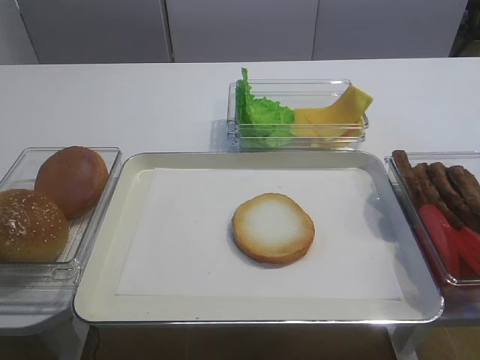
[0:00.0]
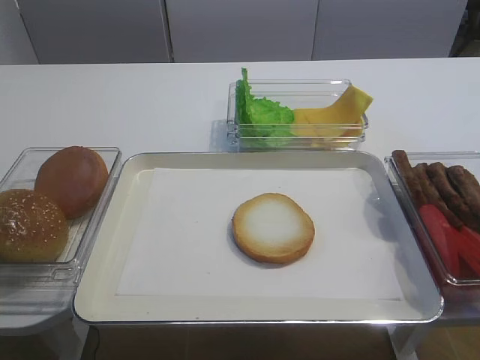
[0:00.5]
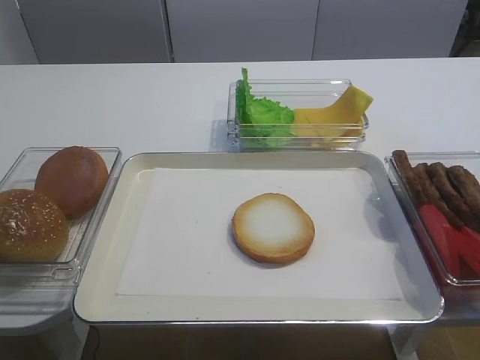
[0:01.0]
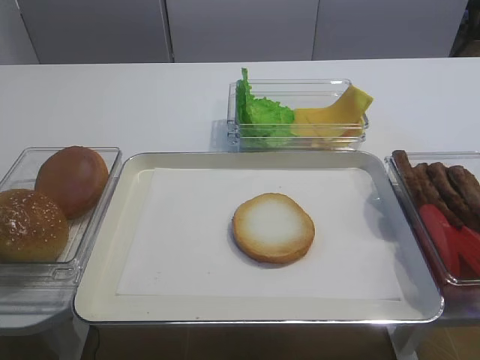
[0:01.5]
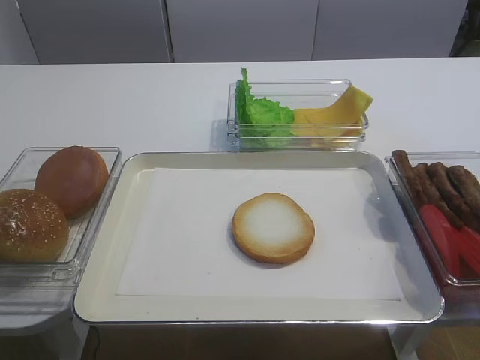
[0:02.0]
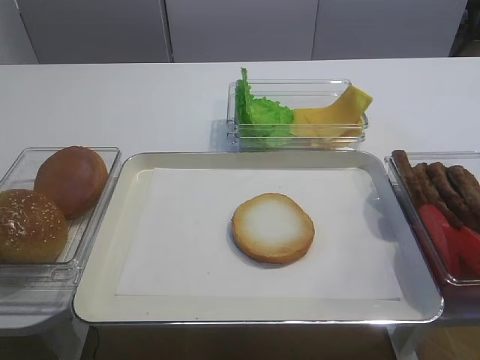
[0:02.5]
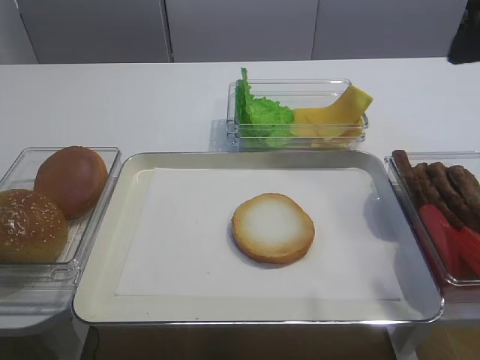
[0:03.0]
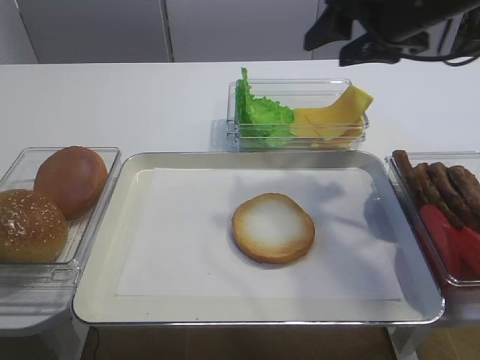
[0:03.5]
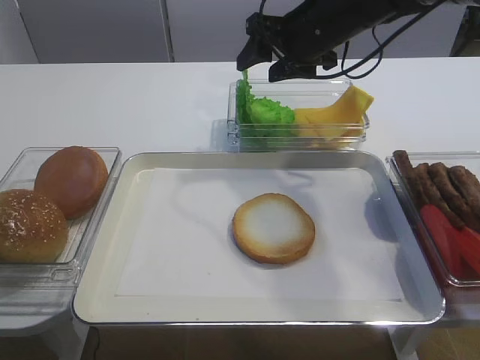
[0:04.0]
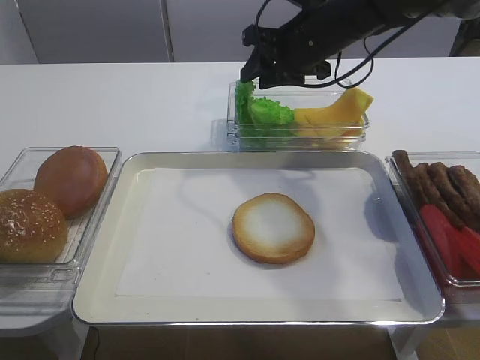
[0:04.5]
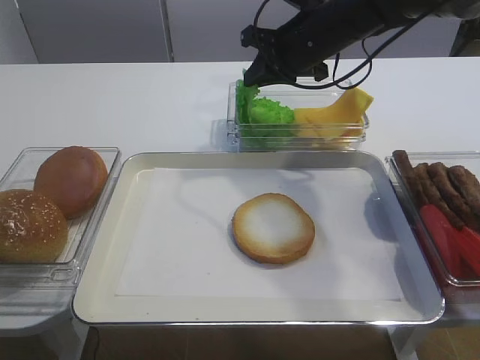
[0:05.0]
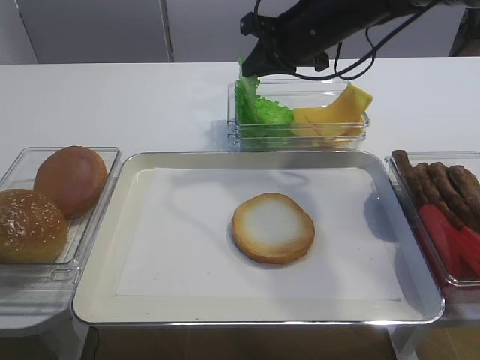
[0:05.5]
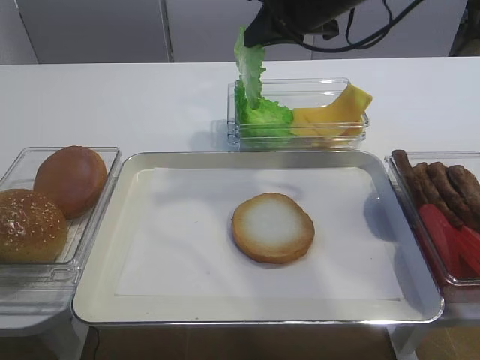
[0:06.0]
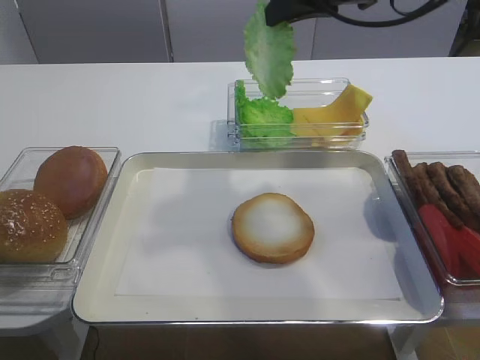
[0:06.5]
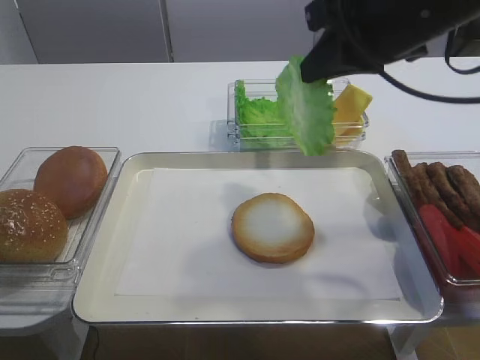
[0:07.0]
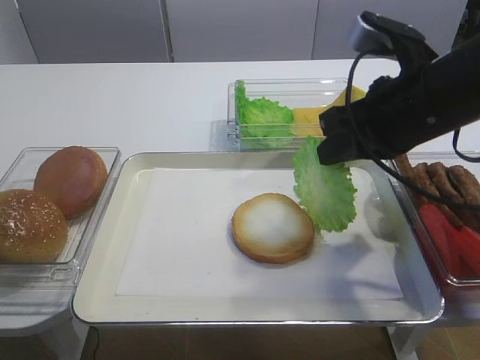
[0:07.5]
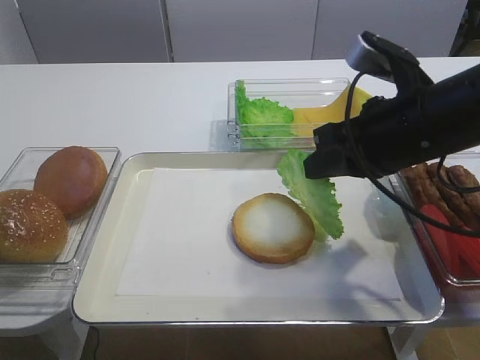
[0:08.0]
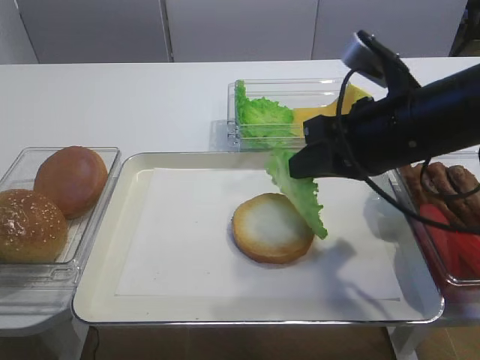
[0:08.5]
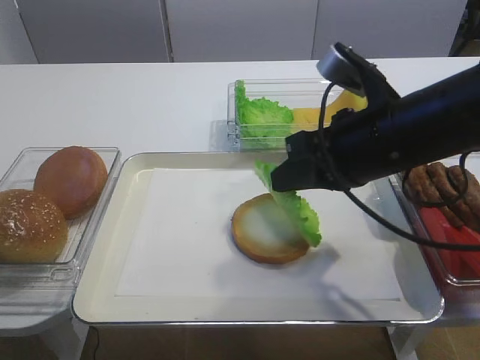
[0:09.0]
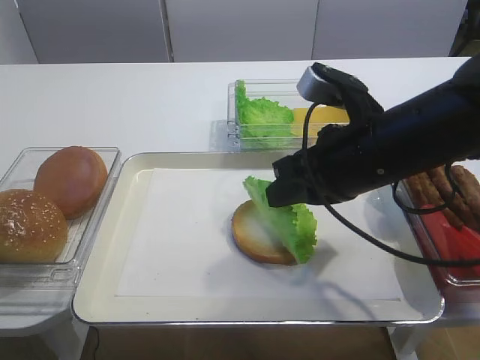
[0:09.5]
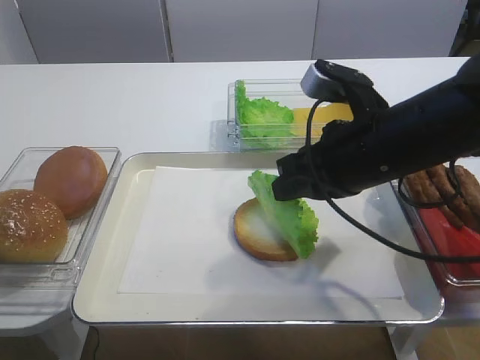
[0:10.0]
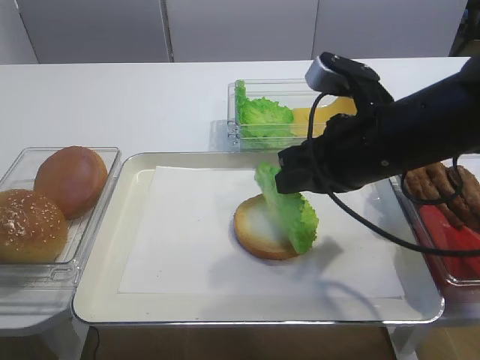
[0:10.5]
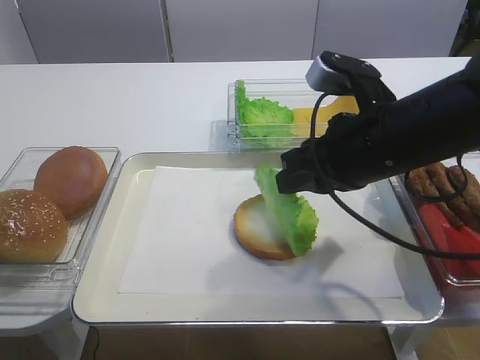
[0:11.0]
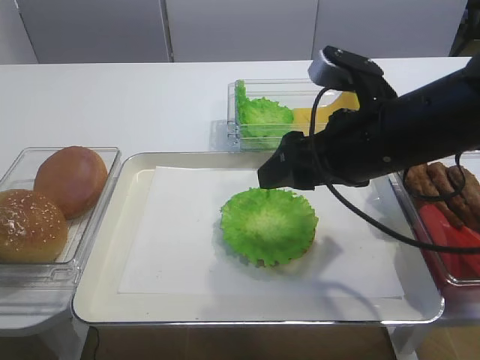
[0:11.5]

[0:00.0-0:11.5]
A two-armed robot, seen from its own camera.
Step, 0:00.0 to 0:05.5: Pick up the lettuce leaf with the right gripper.
Step, 0:06.0 to 0:11.0: Place the lettuce leaf on the bread slice with the right gripper.
0:02.0 to 0:04.0: The right gripper travels forward by roughly 40 cm.
0:04.0 to 0:06.0: The right gripper shifts roughly 5 cm upward, and closes up.
0:06.0 to 0:07.5: The right gripper heads backward and downward, covering approximately 15 cm.
0:07.5 to 0:09.5: The right gripper moves approximately 5 cm.
0:09.5 to 0:11.5: The right gripper opens up.

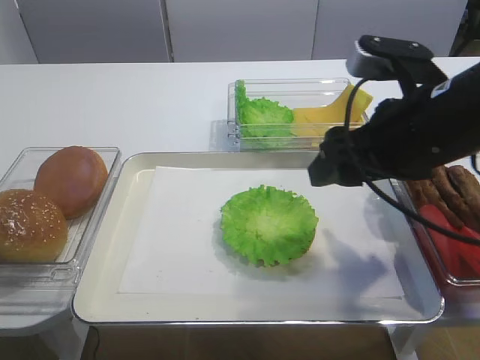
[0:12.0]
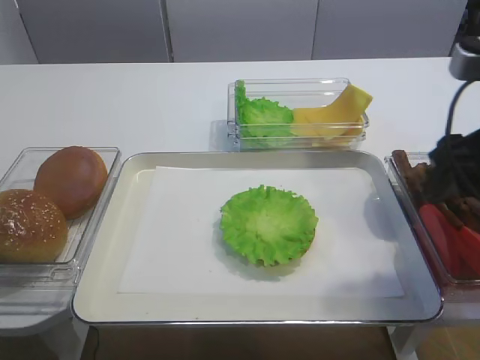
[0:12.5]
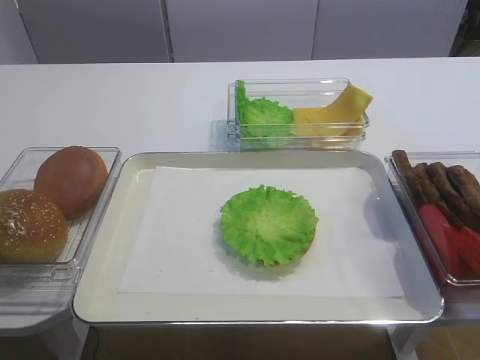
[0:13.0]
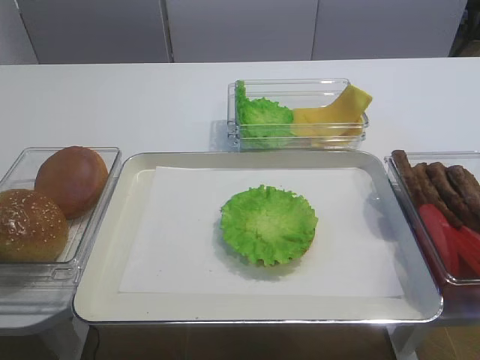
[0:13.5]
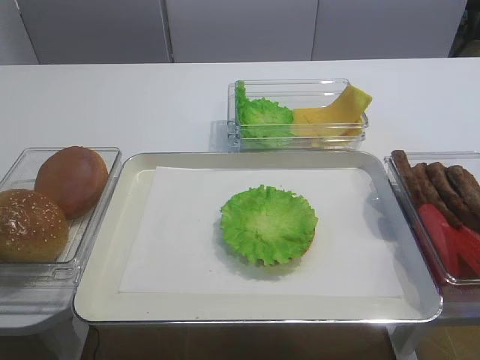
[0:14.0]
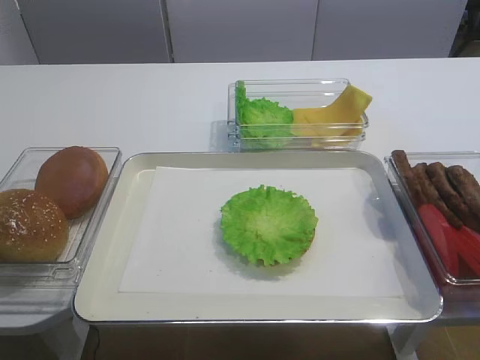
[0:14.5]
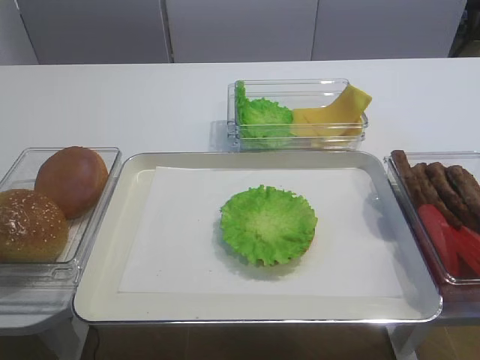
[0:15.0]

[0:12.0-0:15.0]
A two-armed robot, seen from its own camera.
0:12.0 to 0:13.5: The right gripper heads backward and to the right, covering some 30 cm.

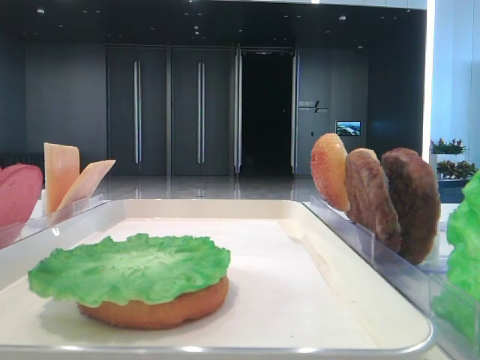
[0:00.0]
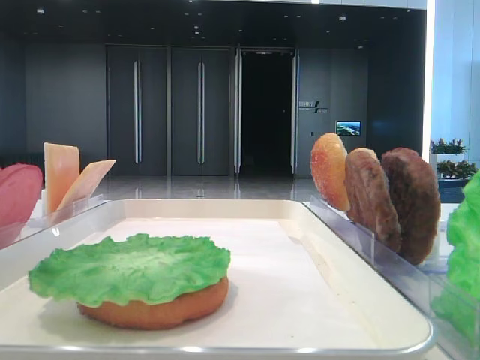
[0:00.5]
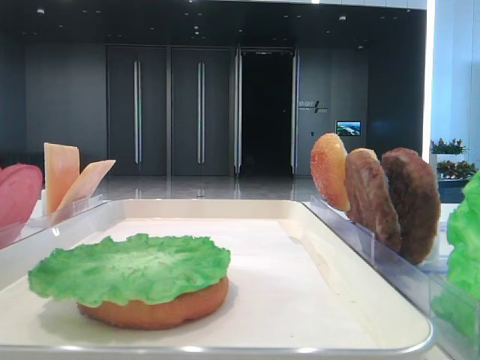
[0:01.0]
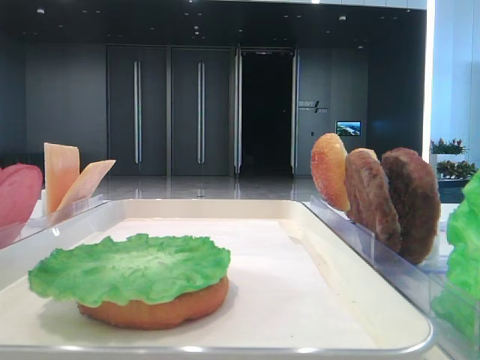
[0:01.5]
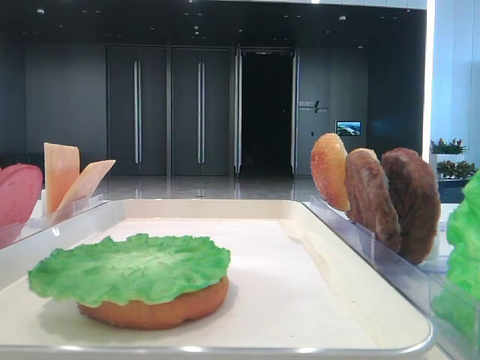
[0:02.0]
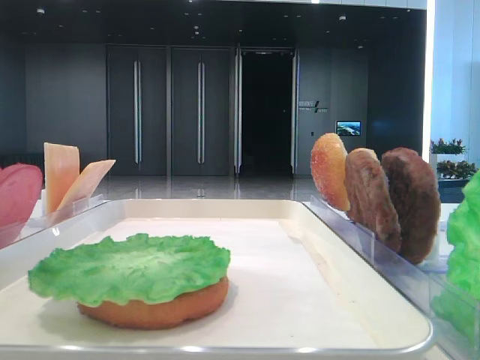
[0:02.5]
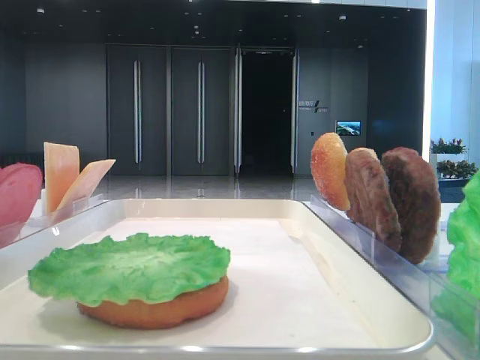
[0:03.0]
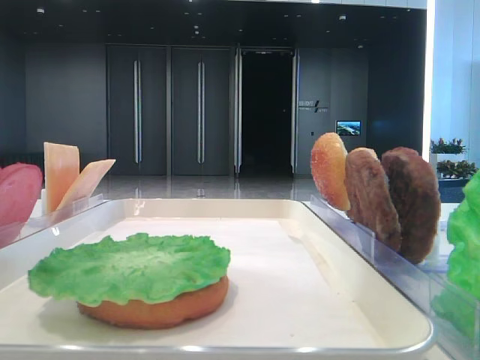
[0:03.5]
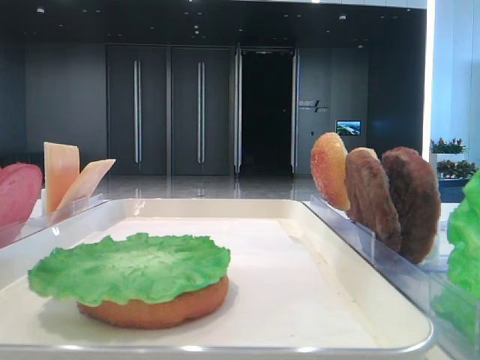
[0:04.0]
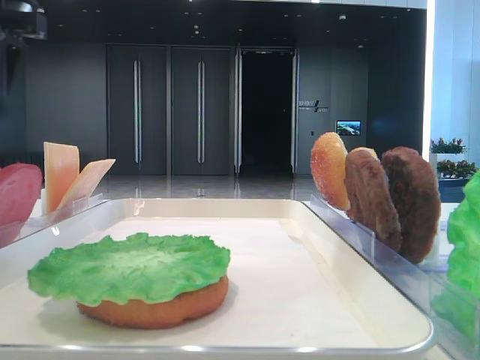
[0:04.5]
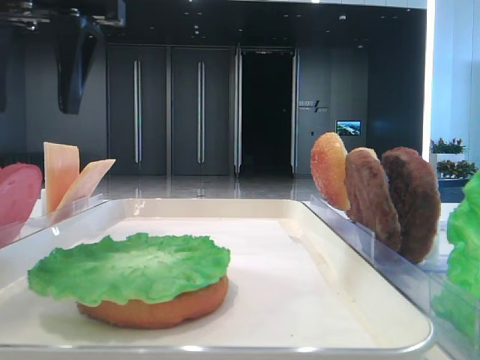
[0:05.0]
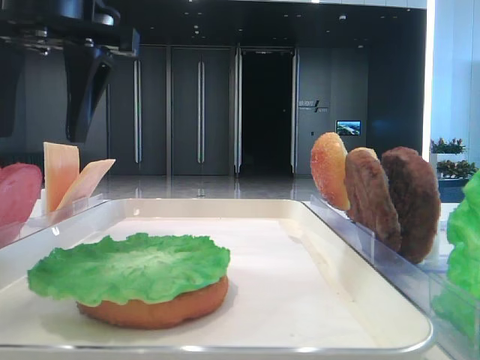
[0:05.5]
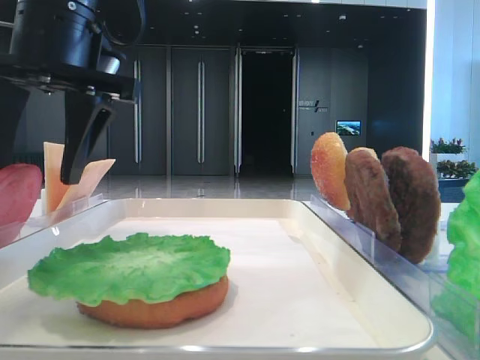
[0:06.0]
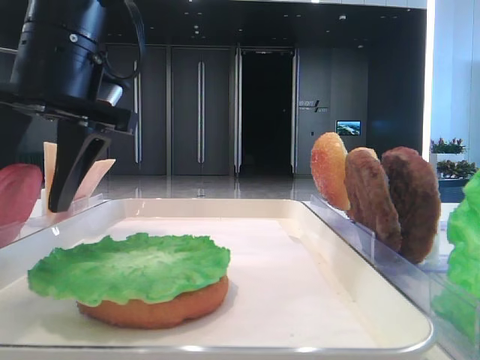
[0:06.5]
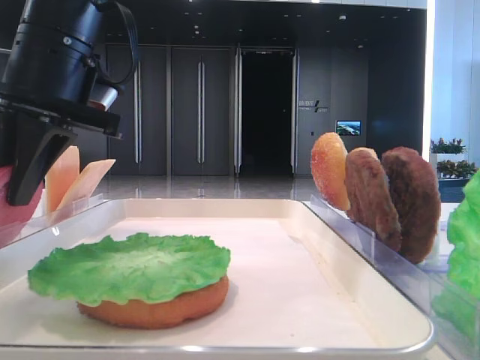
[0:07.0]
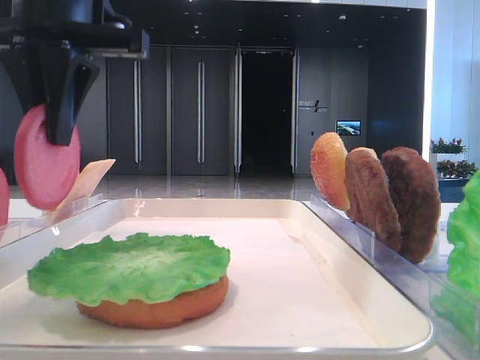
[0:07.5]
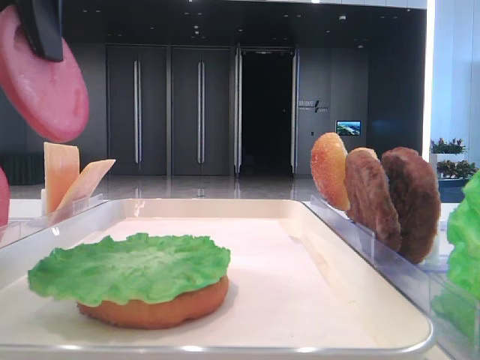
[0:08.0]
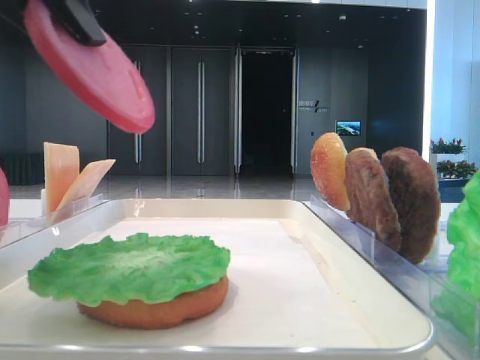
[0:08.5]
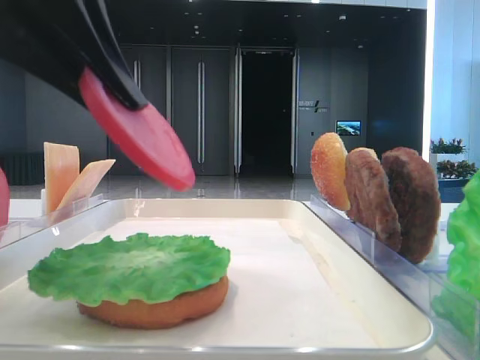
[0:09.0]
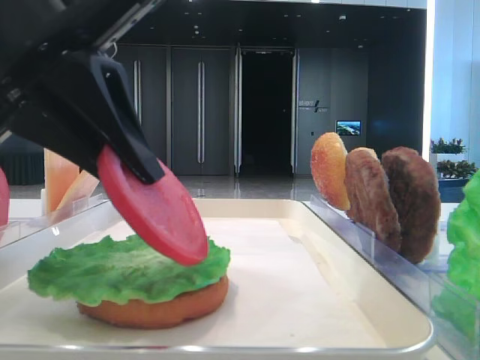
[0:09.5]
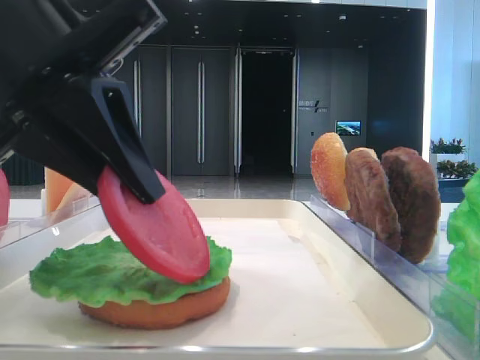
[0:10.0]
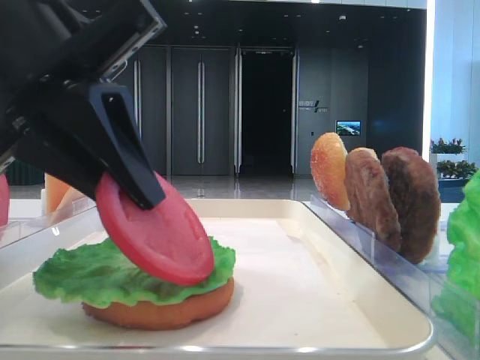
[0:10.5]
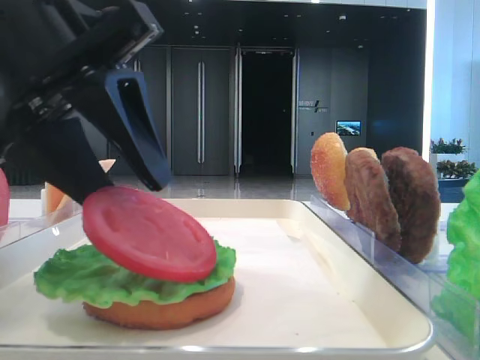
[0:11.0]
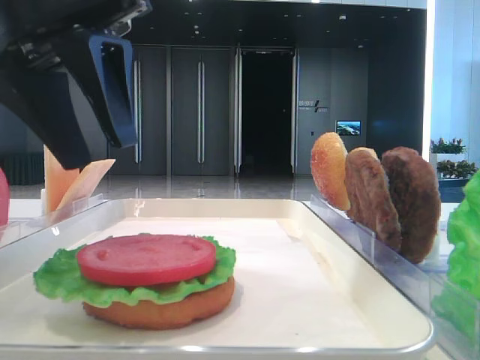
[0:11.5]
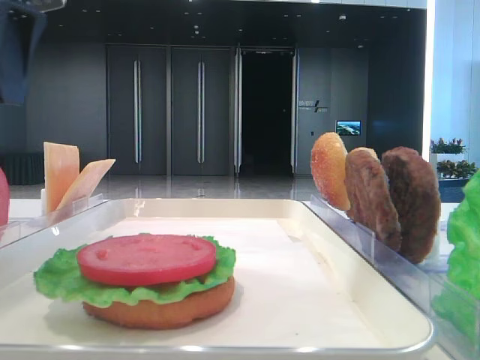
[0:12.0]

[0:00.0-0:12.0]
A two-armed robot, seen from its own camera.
Step, 0:00.0 to 0:06.5: Pick up the tomato slice with the left hand.
Step, 0:07.0 to 0:11.0: Place the tomato slice on the lettuce leaf with the left hand.
0:04.0 to 0:06.0: The left gripper is displaced to the right and downward by approximately 20 cm.
0:06.0 to 0:08.0: The left gripper goes roughly 10 cm backward and upward, and closes.
0:08.0 to 0:10.0: The left gripper moves downward, roughly 10 cm.
0:10.0 to 0:12.0: The left gripper is displaced upward, to the left and forward by some 15 cm, and opens its fingers.
